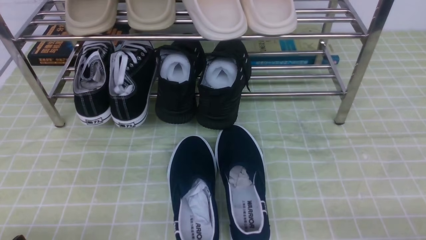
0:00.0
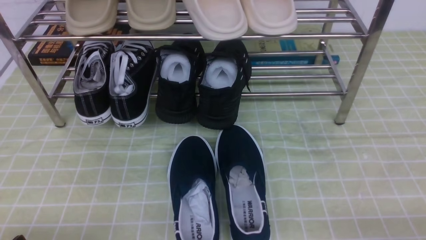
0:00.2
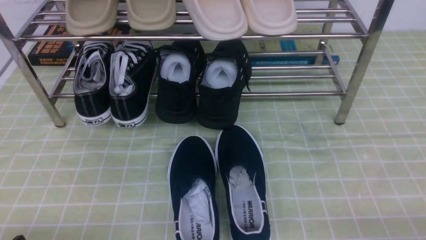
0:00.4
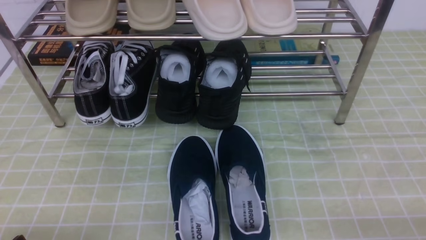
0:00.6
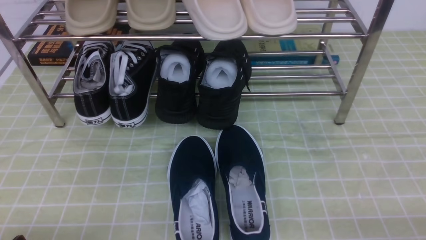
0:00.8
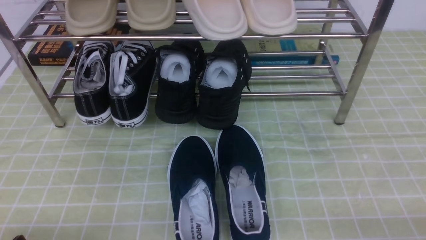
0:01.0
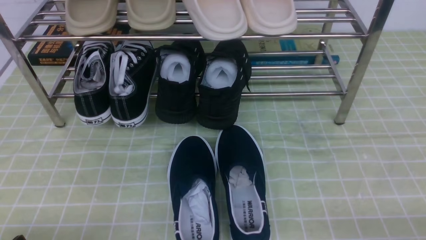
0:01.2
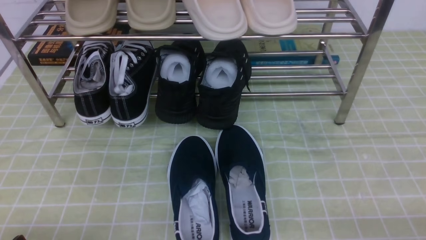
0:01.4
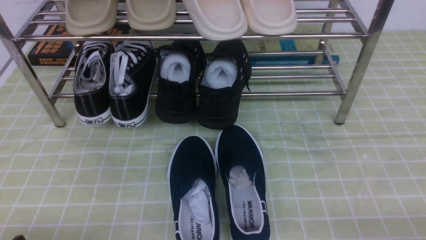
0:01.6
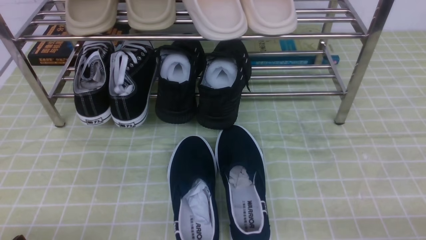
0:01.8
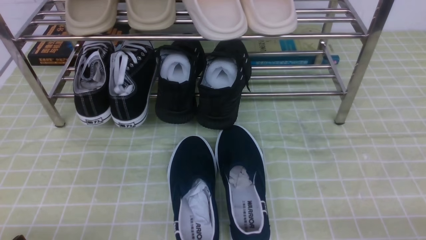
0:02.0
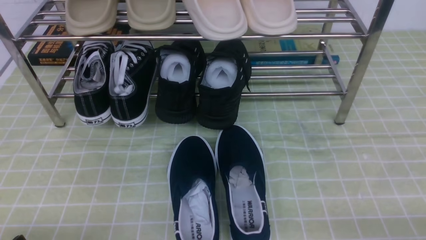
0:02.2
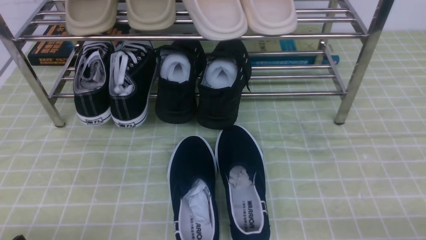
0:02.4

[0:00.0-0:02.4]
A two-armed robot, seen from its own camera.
0:01.2 to 0:02.4: Neither gripper changes place.

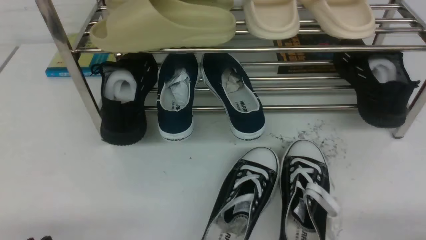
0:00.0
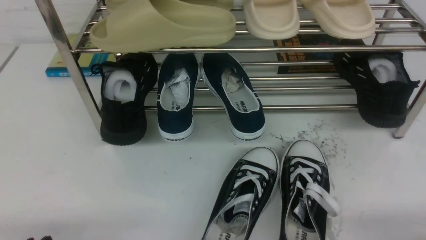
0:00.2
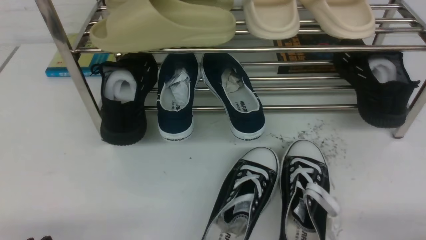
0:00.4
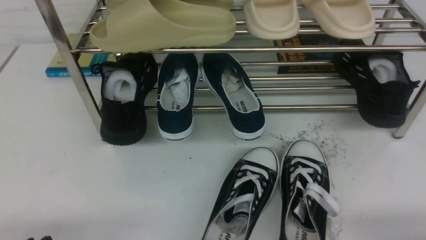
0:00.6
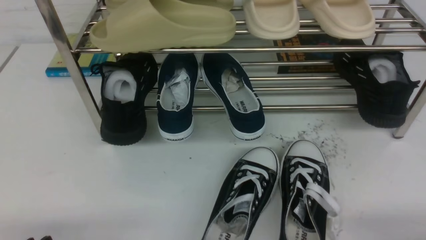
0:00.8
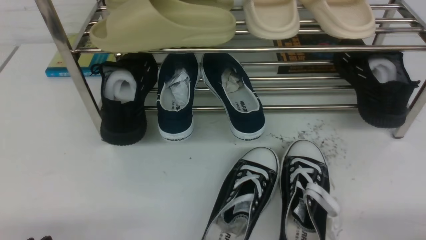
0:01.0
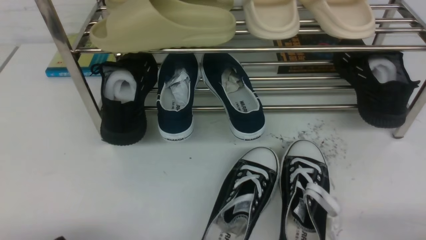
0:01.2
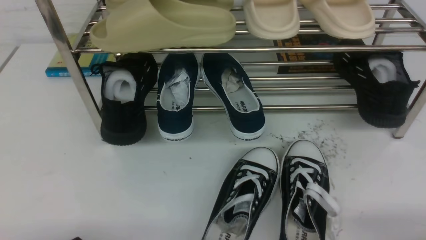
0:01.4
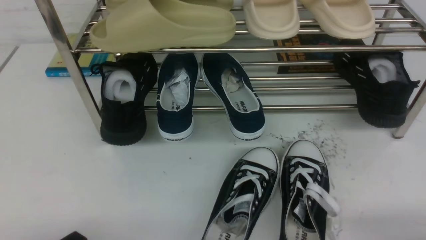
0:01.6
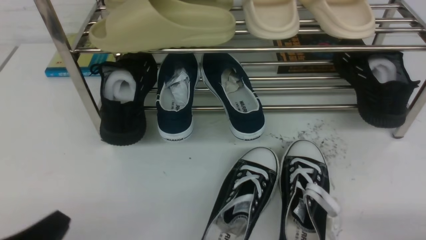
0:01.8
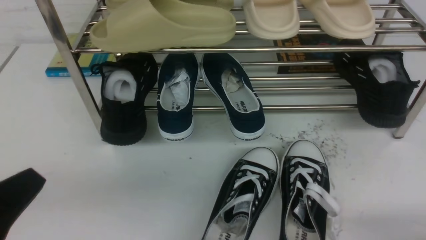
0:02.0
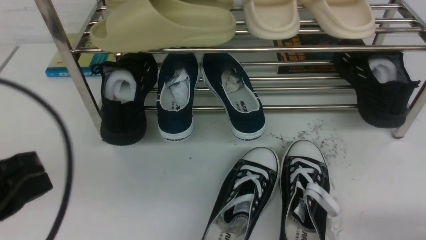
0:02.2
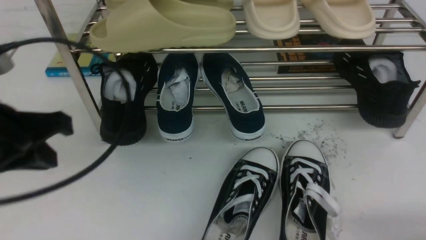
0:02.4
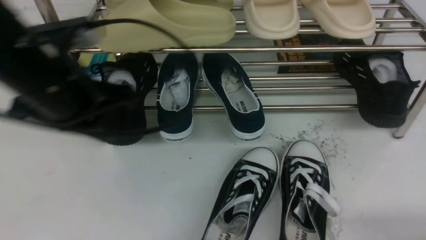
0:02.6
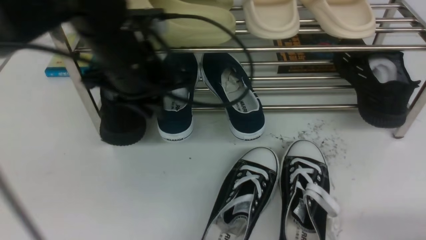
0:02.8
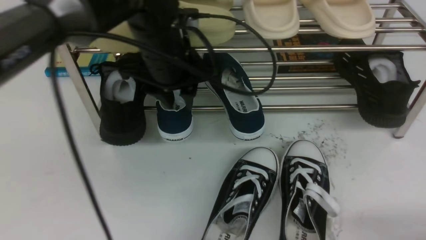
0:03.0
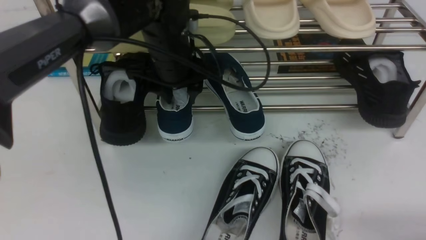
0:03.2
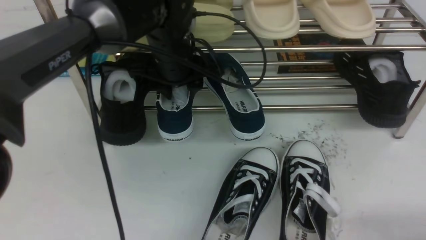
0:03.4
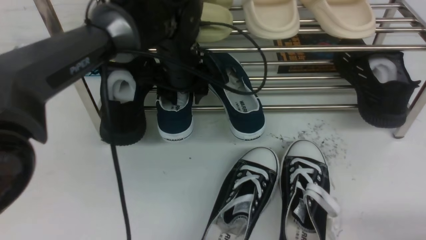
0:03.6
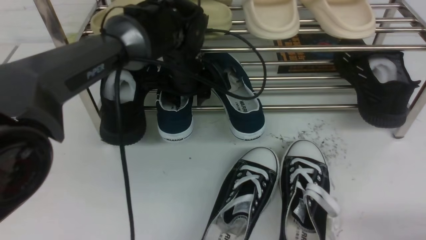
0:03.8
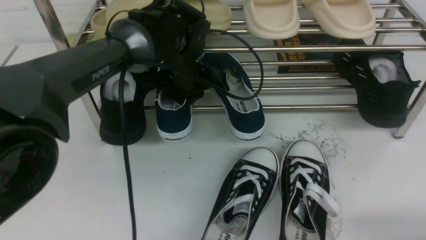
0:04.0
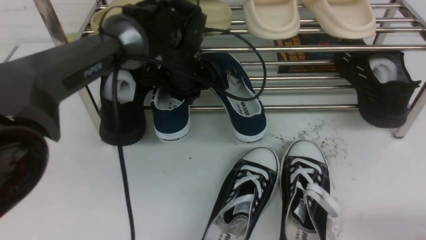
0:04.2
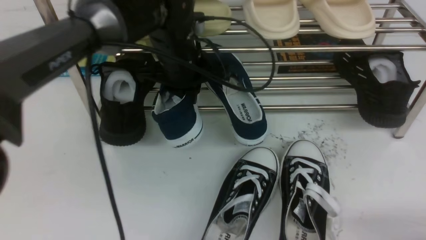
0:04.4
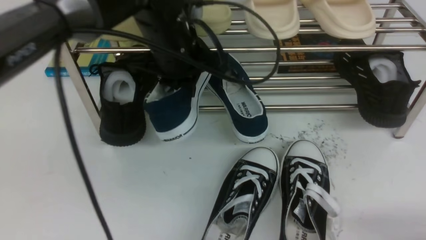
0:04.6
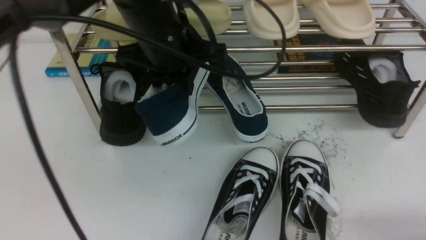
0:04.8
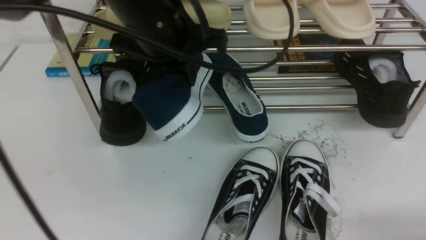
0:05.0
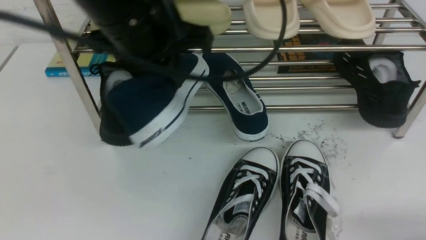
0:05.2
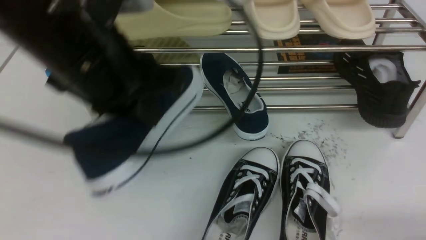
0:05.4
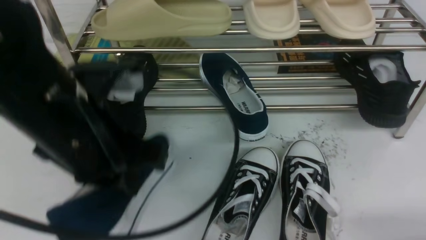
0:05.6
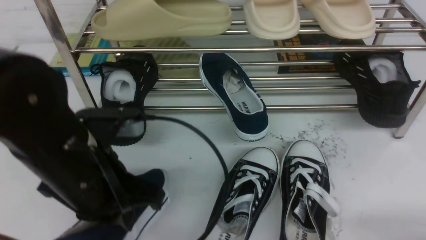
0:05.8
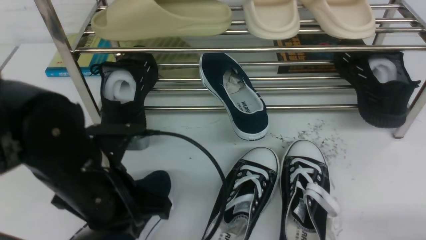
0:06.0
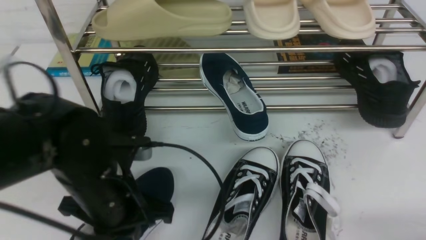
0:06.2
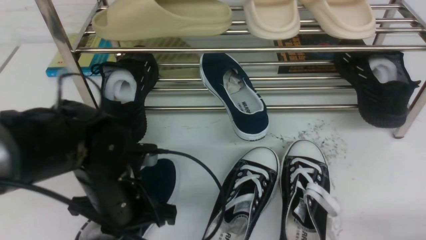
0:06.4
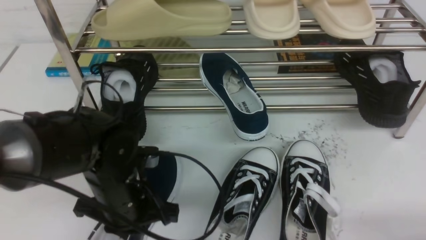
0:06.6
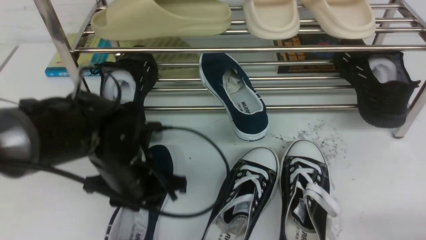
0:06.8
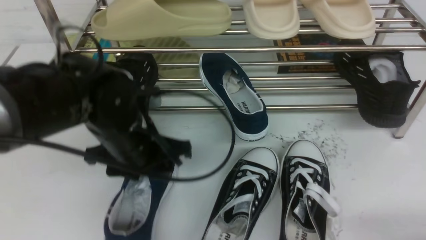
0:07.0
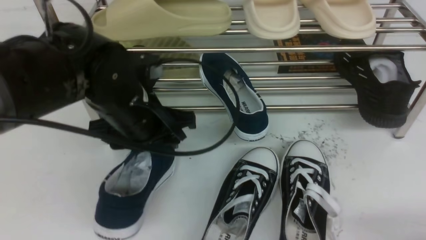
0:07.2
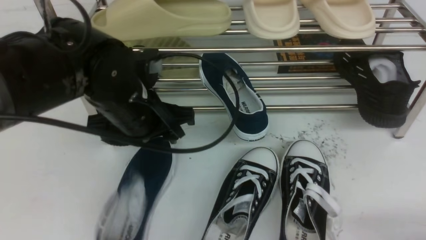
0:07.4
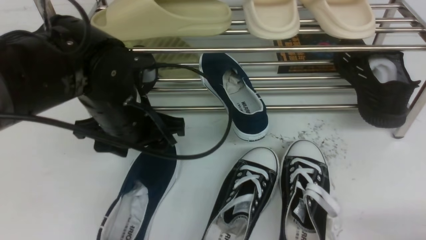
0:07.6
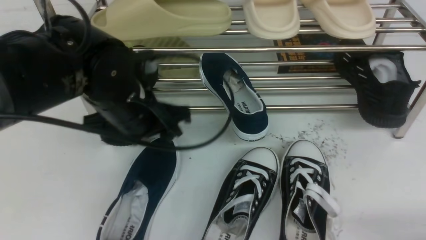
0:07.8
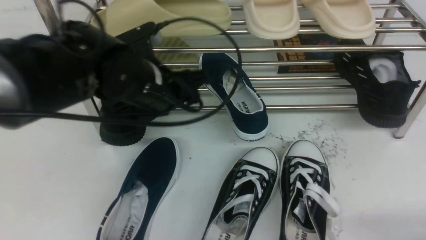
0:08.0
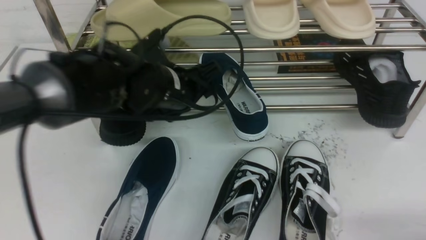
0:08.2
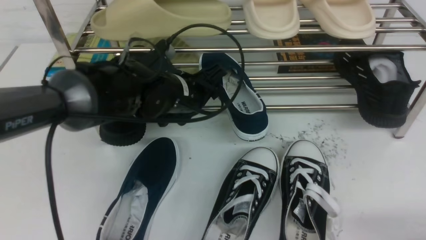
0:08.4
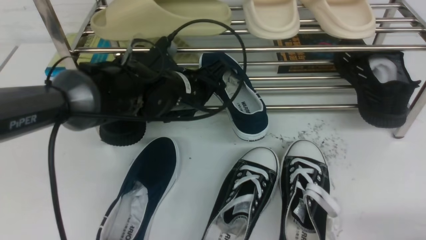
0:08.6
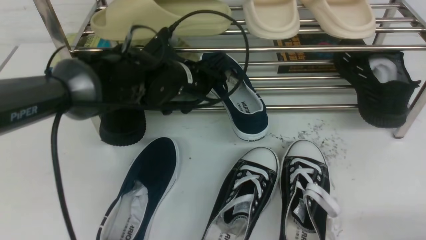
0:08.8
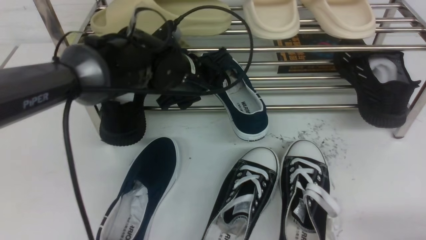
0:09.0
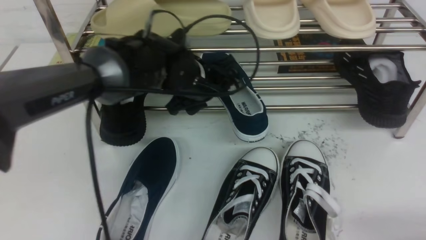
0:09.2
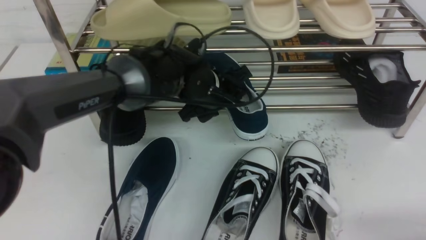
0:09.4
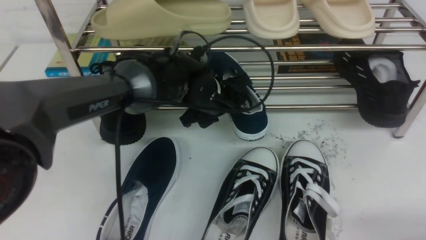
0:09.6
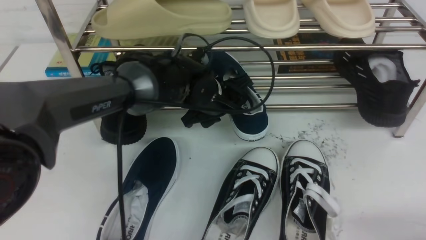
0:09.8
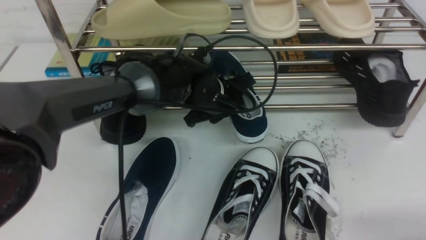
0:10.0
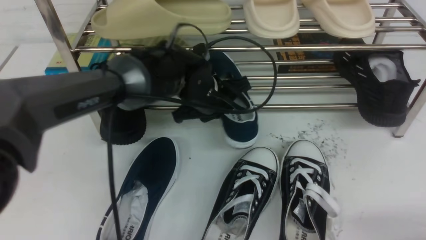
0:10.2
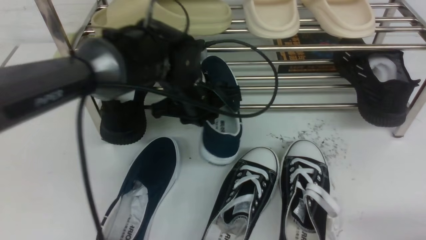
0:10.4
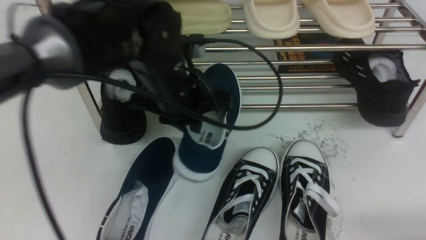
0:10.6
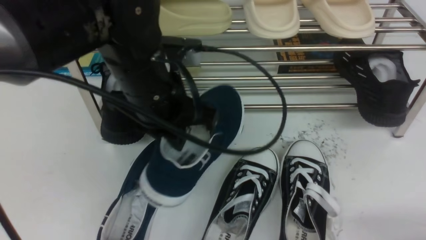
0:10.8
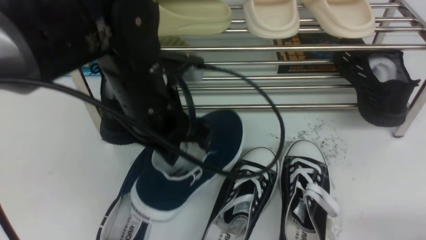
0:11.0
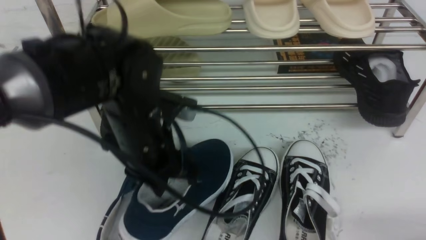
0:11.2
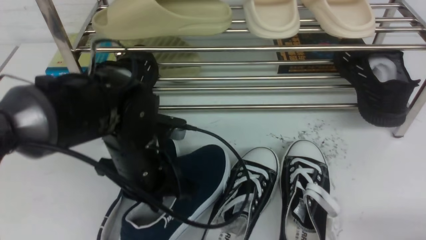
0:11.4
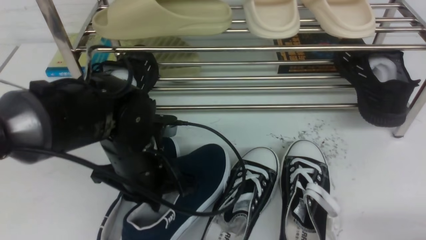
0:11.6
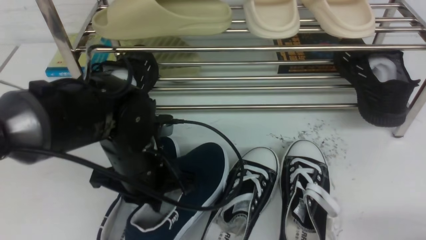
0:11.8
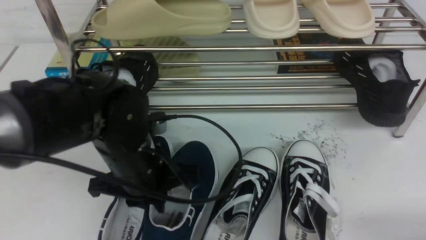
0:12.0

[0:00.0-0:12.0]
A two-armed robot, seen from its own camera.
Step, 0:00.0 to 0:04.4: use the left arm to clamp a shoe on the left side of the shoe rack.
Step, 0:04.6 to 0:07.0: Use your left arm to remove the clamped shoe from the shoe rack and put it down.
Step, 0:07.2 to 0:10.4: use the left arm to clamp a shoe in the middle of the shoe rack.
0:01.6 to 0:03.0: The left gripper travels forward, to the right and upward by approximately 35 cm.
0:03.0 to 0:04.4: The left gripper closes up.
0:04.4 to 0:06.0: The left gripper goes approximately 20 cm backward and to the left.
0:06.0 to 0:07.6: The left gripper is displaced forward by some 10 cm, and opens up.
0:07.6 to 0:09.0: The left gripper travels forward and to the right by roughly 10 cm.
0:09.0 to 0:10.4: The left gripper closes its fingers.
0:10.4 to 0:12.0: The left gripper travels backward and to the left by roughly 10 cm.

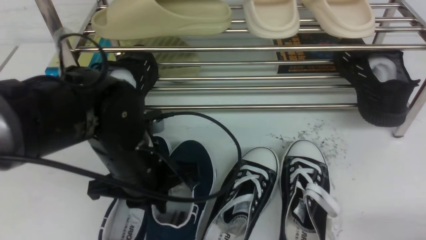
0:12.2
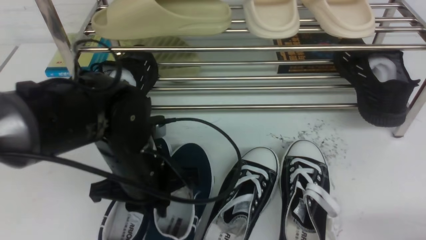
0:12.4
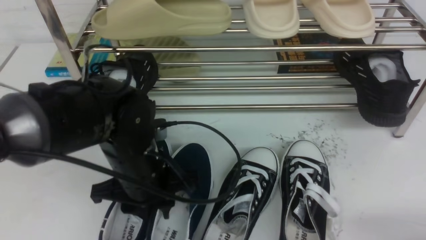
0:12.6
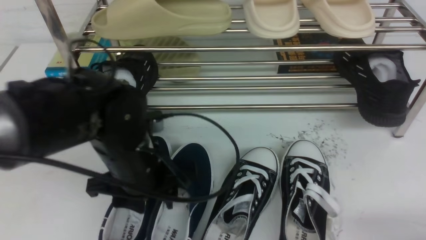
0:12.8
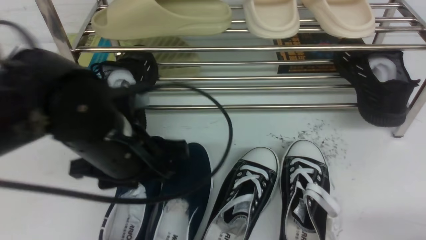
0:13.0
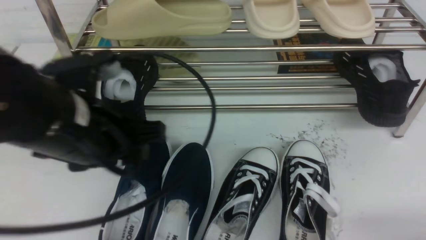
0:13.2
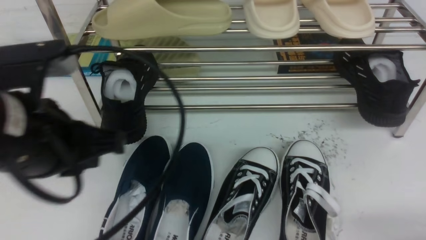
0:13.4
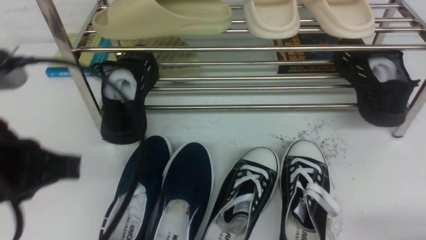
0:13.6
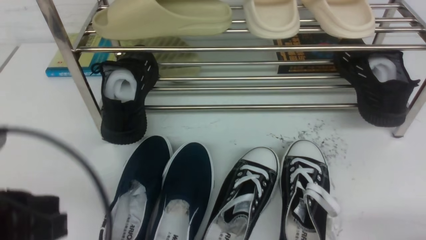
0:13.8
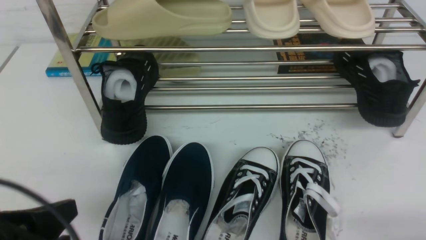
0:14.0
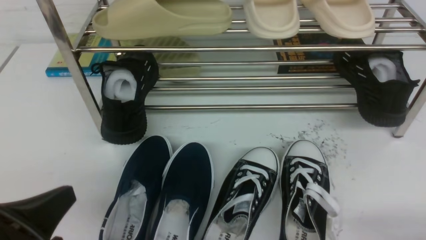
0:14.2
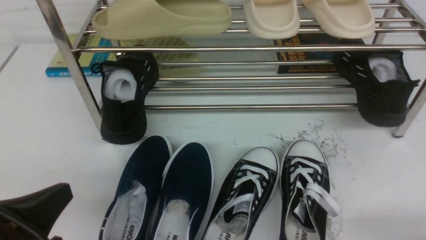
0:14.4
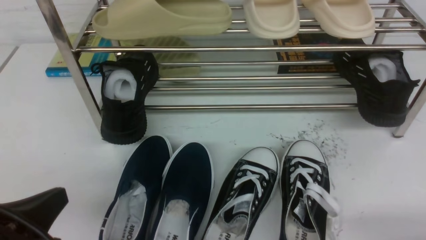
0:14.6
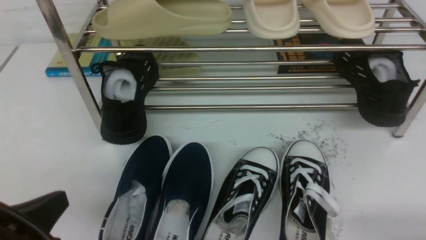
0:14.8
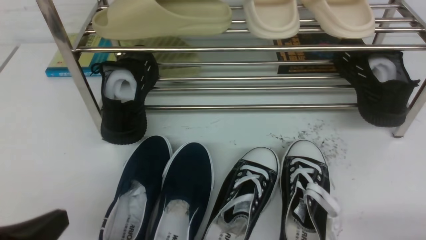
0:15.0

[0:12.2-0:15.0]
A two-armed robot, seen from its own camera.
0:12.2 to 0:13.6: The left gripper goes approximately 20 cm upward, backward and to the left, and opens, then closes once more.
0:13.6 to 0:15.0: The left gripper is displaced downward and backward by about 10 cm.
